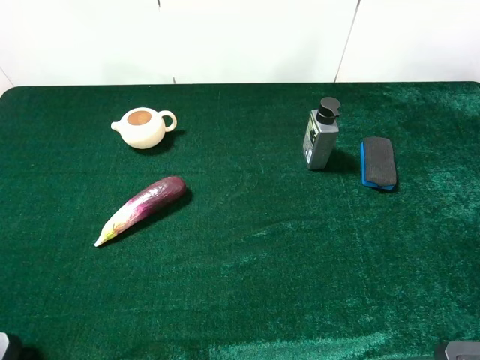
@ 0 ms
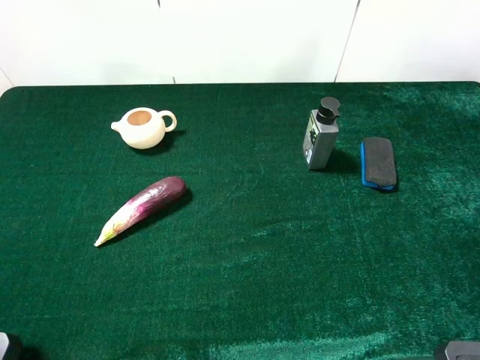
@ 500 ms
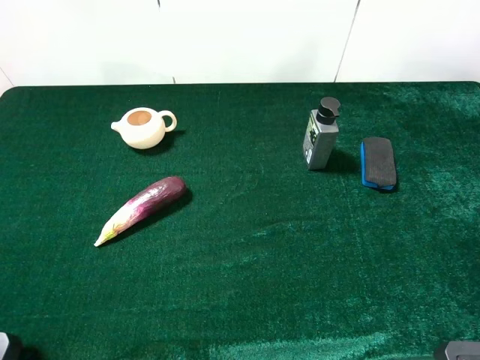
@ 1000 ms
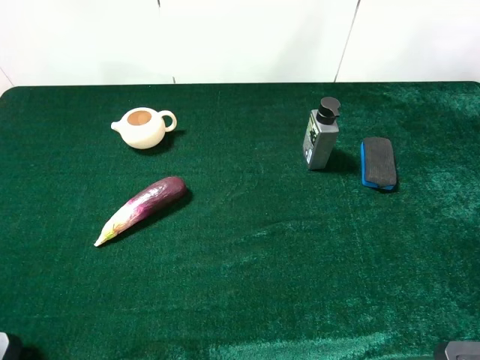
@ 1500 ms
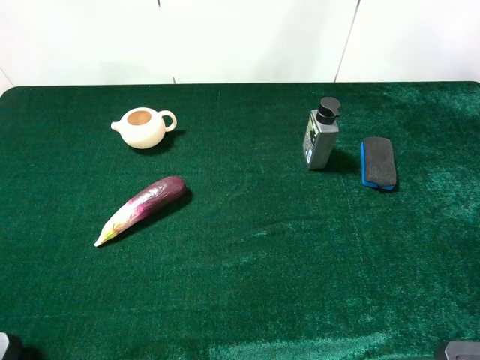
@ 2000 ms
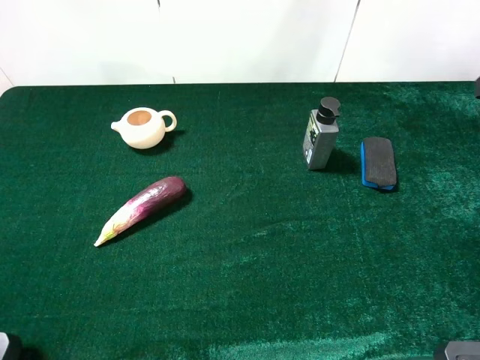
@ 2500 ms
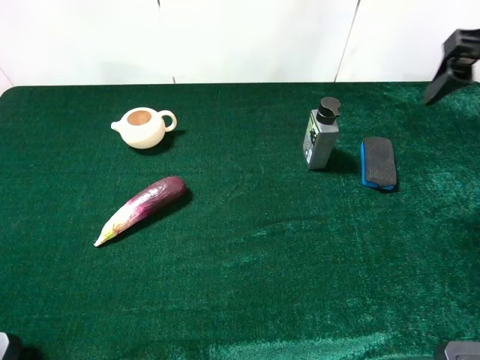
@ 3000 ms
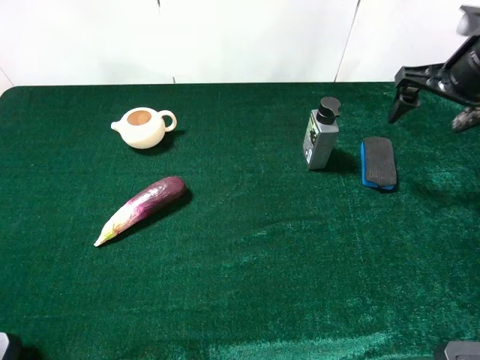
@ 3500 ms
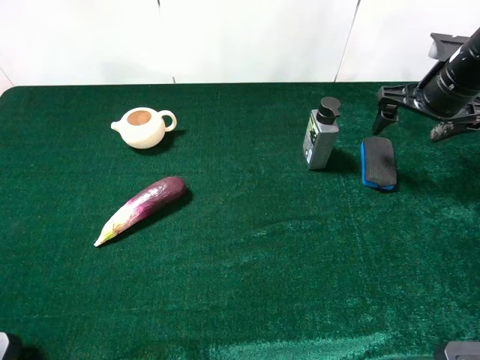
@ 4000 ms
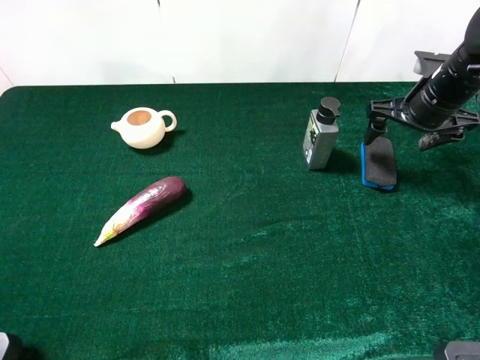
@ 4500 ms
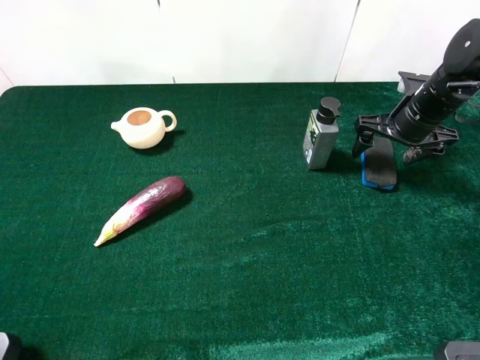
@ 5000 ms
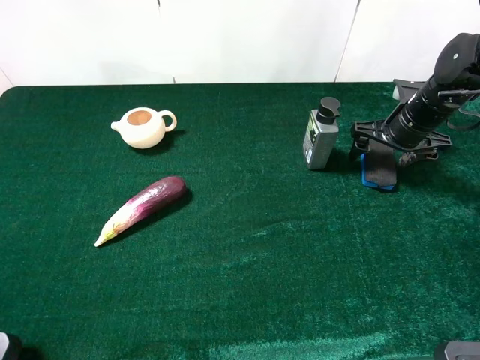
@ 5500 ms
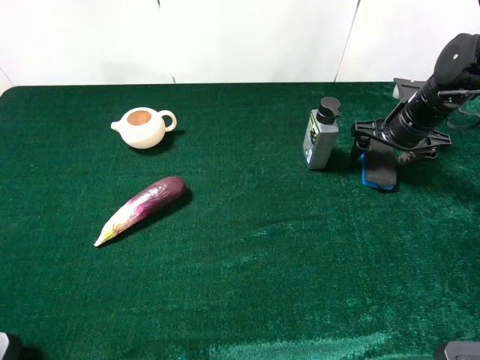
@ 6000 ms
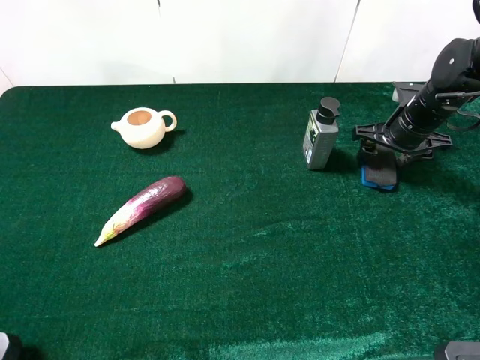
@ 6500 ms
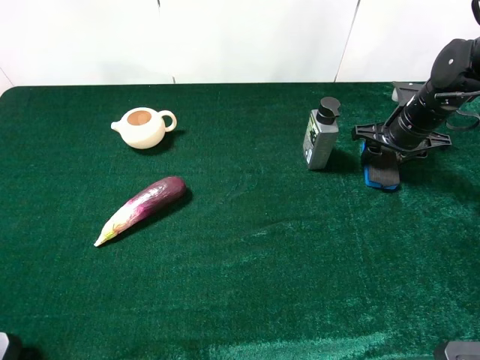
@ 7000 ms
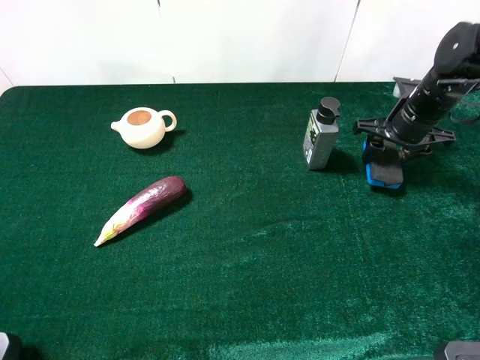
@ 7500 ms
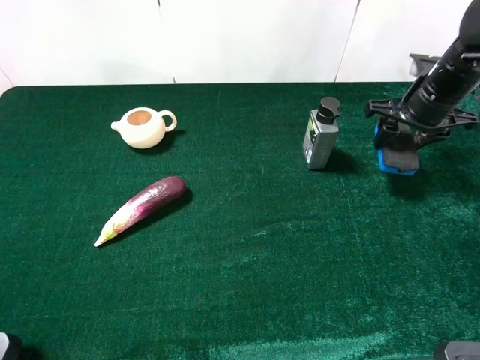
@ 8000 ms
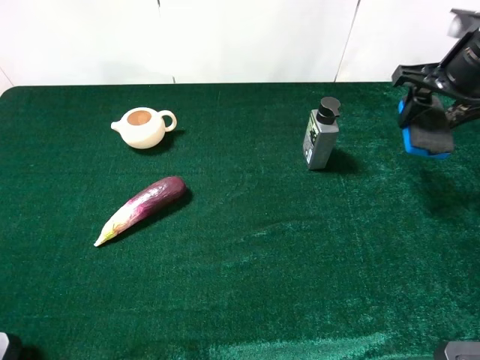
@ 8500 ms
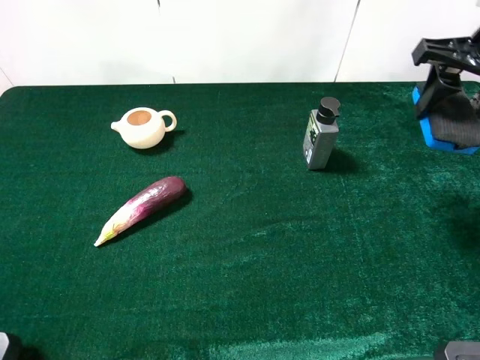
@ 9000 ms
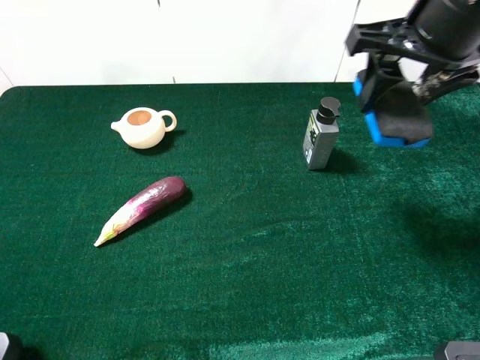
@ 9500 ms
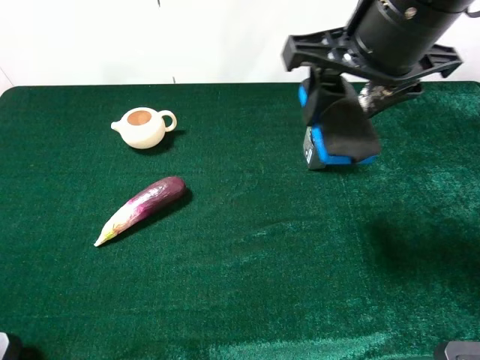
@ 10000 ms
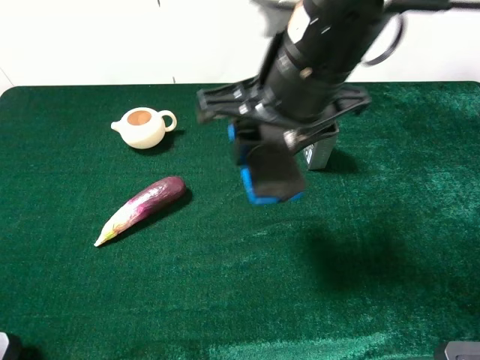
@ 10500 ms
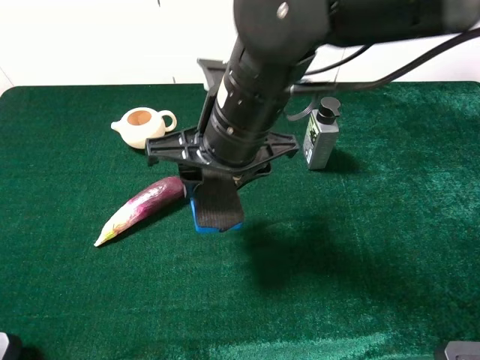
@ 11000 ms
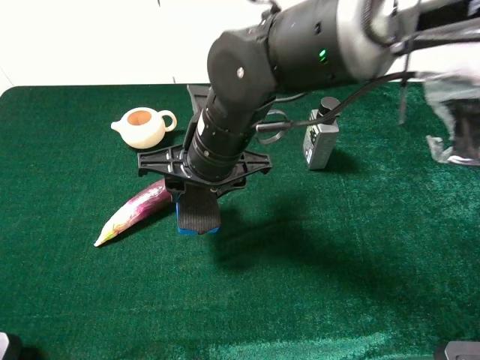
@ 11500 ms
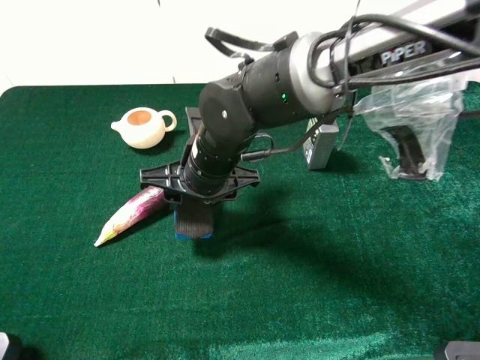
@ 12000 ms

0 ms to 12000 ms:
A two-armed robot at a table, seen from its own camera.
Task of the whole recording: the gripper move the object.
Step, 0 ms to 7000 ms: Grasp the blue blackboard earser with the right gripper.
2000 ms to 4000 ms: The right gripper travels forward and downward by roughly 25 cm.
4000 ms to 6000 ms: The right gripper shifts roughly 10 cm downward.
6000 ms to 8000 ms: The right gripper goes about 5 cm upward, and closes.
8000 ms to 10000 ms: The right gripper shifts approximately 25 cm to the left, upward and backward.
10000 ms to 12000 ms: The right gripper goes roughly 25 cm downward and to the left.

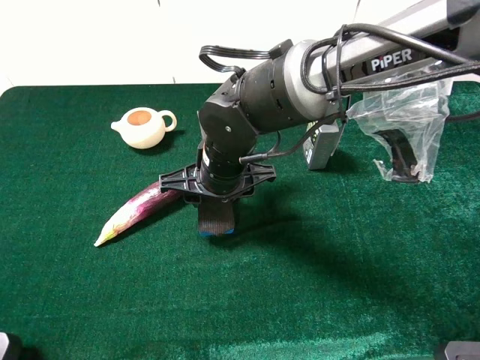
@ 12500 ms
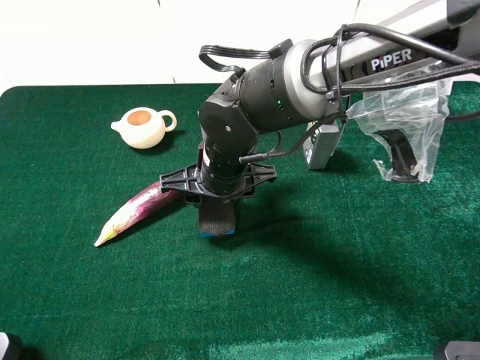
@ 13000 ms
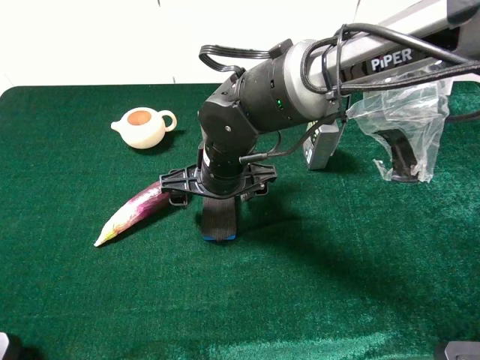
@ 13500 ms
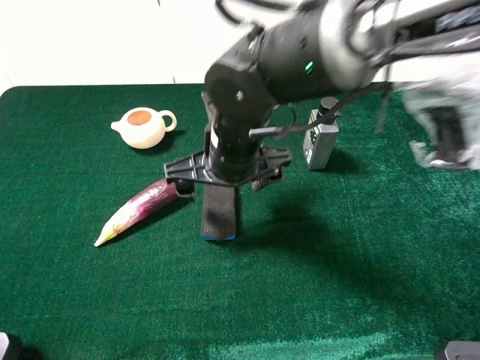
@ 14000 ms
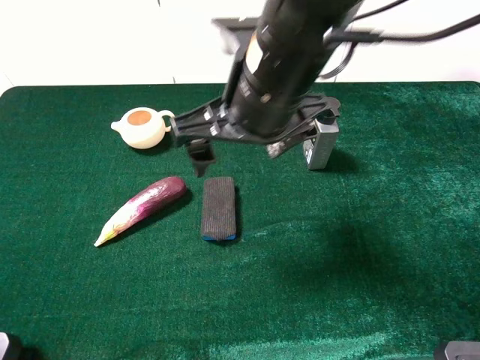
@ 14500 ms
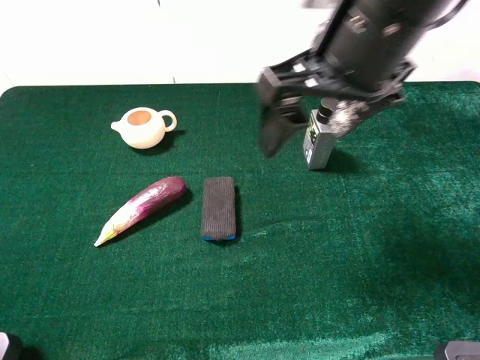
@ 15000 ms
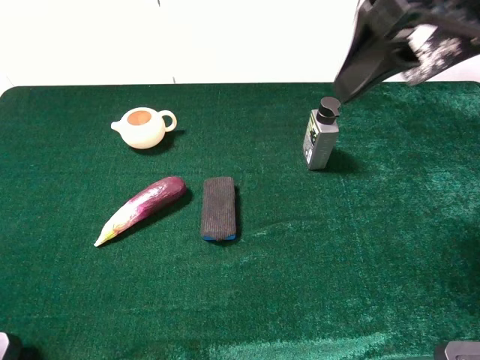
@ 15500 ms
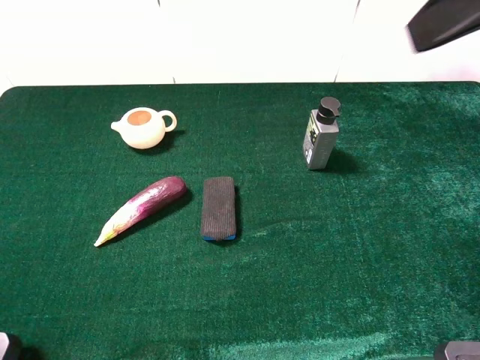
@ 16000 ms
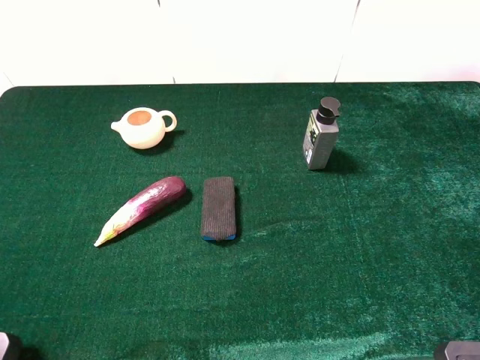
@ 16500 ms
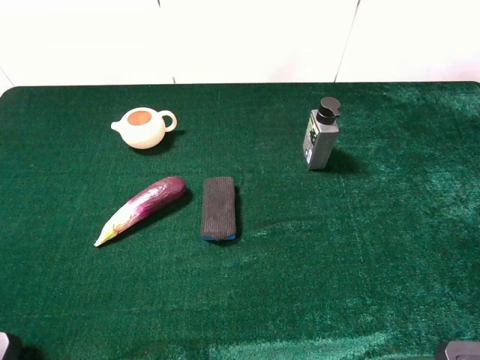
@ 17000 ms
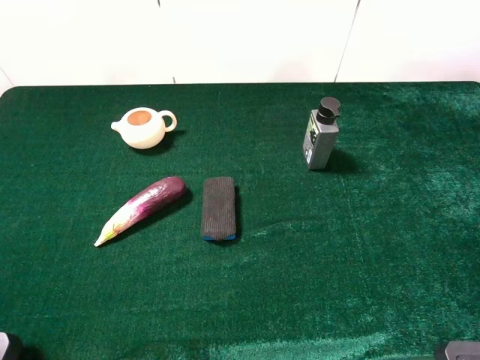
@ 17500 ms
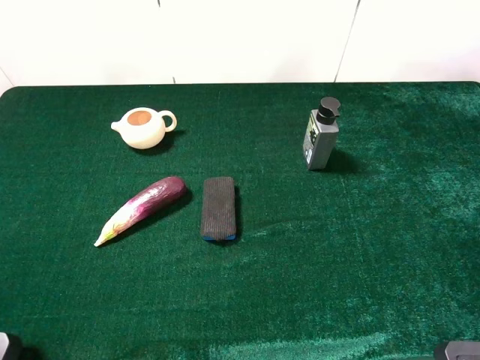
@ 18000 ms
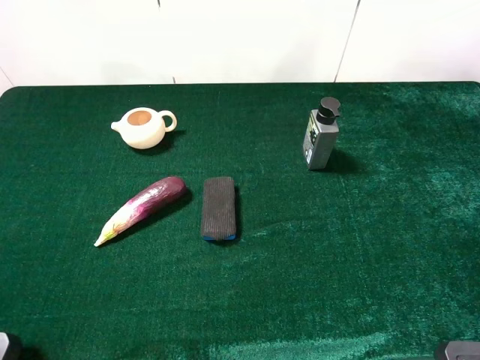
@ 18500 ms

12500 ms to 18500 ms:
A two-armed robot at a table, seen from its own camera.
Task of the whole recording: the gripper move the object.
12500 ms to 14500 ms: The right gripper heads upward, covering approximately 15 cm, and opens.
14500 ms to 16500 ms: The right gripper heads to the right, upward and backward, covering about 30 cm.

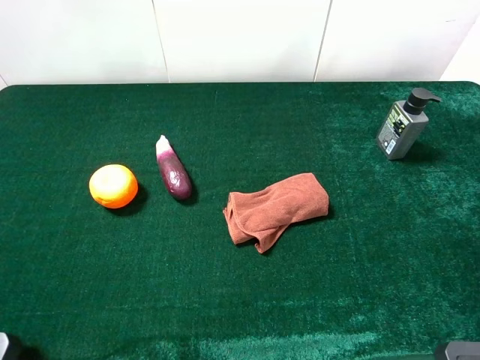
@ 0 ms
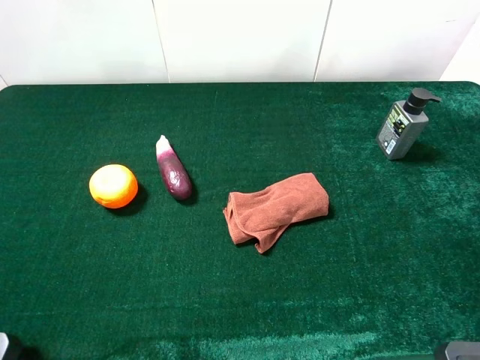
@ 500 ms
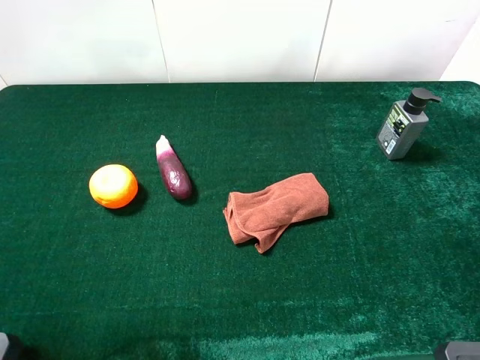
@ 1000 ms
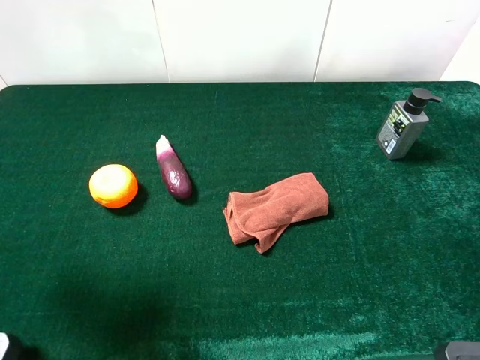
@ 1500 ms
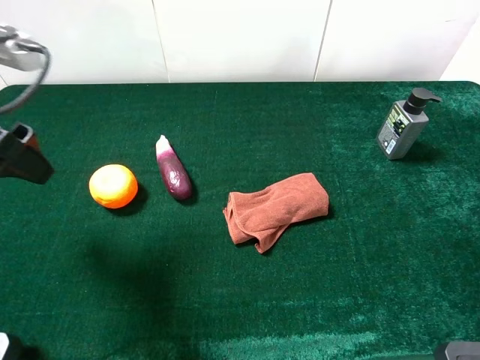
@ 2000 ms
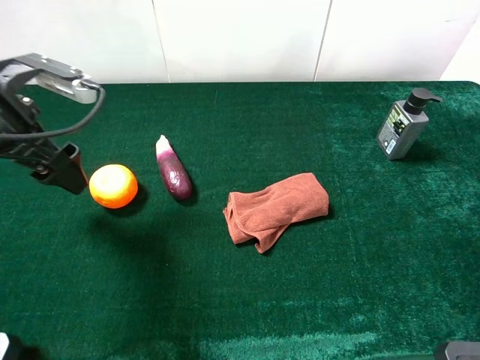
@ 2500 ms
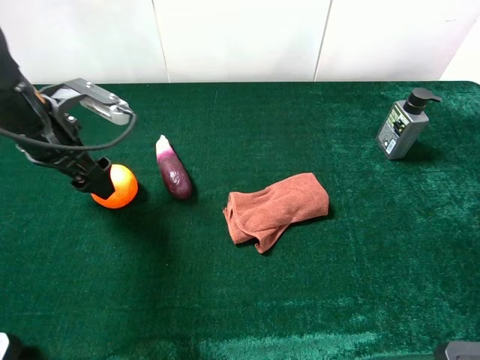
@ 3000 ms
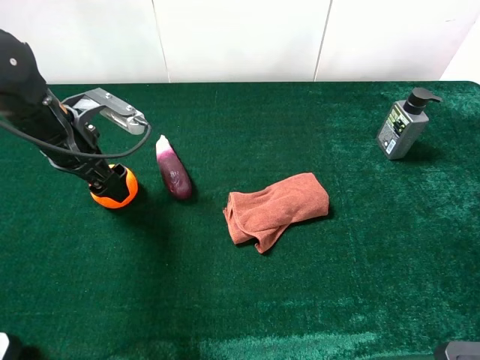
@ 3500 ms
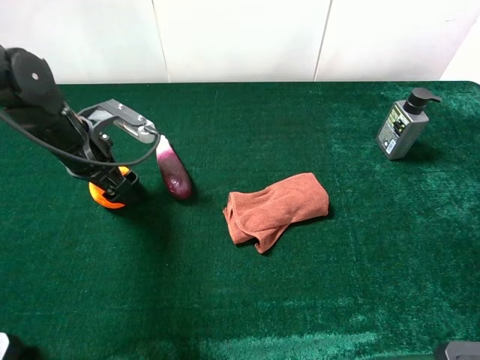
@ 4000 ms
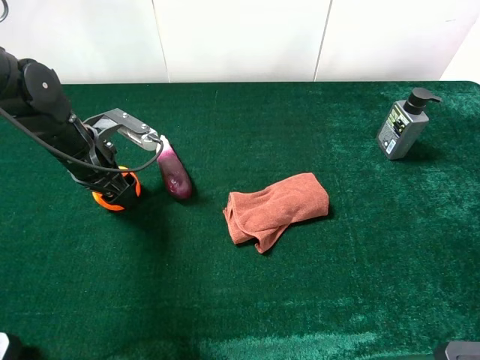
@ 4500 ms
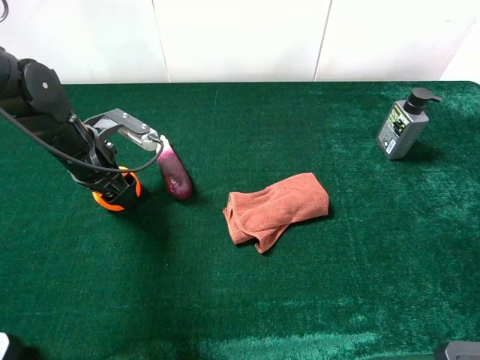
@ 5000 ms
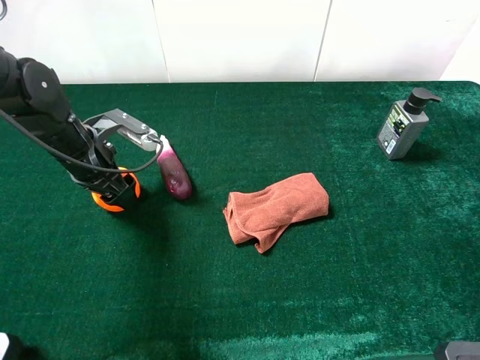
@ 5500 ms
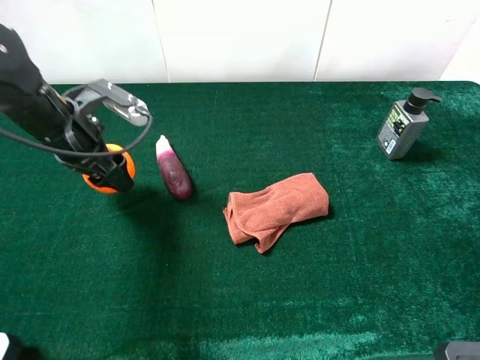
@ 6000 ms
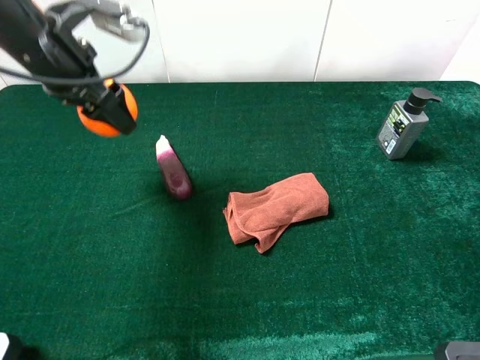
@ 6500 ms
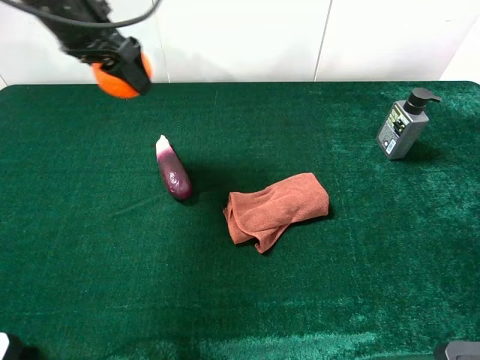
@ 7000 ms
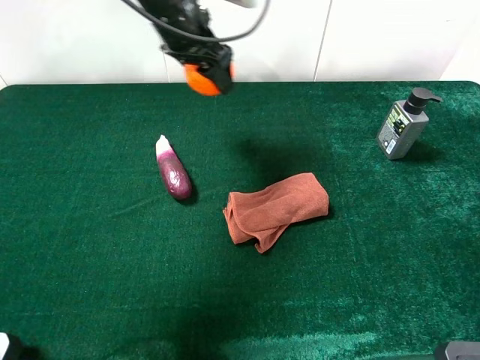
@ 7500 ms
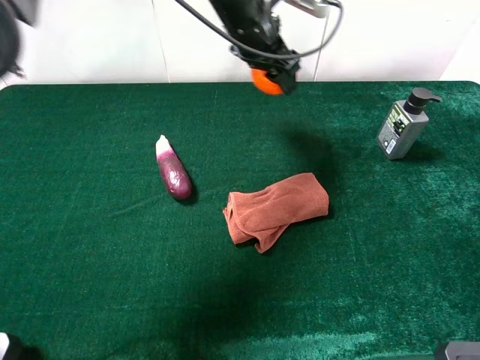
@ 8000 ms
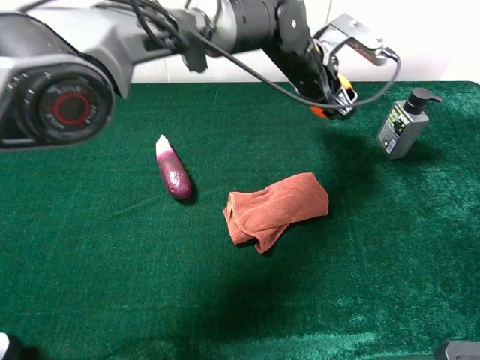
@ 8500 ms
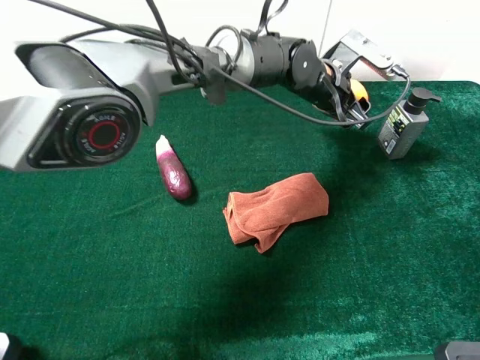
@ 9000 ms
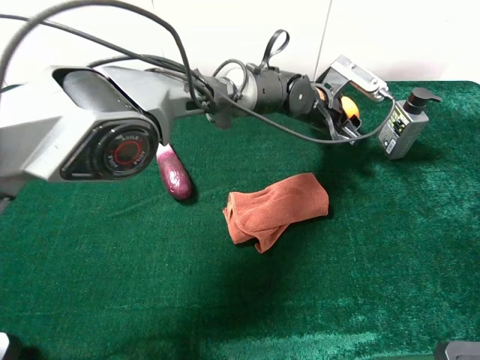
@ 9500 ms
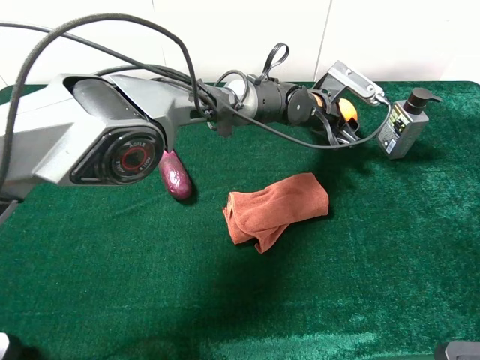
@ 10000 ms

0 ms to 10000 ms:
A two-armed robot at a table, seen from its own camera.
Task of the whole recording: the gripper move the object.
Step, 0 ms to 5000 ms: Grasp the orange with the left gripper.
0 ms to 2000 ms: The left gripper shifts roughly 20 cm forward.
2000 ms to 4000 ms: The left gripper is displaced downward and forward by about 15 cm.
4000 ms to 6000 ms: The left gripper closes.
6000 ms to 8000 ms: The left gripper shifts roughly 30 cm to the right and forward.
8000 ms to 10000 ms: The left gripper travels downward and to the right by roughly 15 cm.
